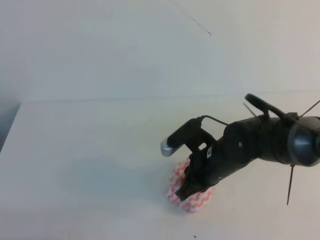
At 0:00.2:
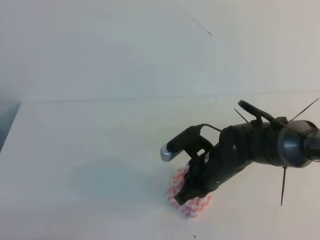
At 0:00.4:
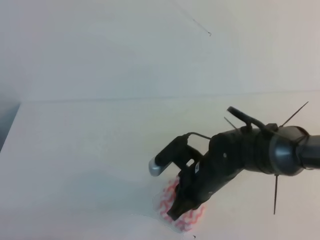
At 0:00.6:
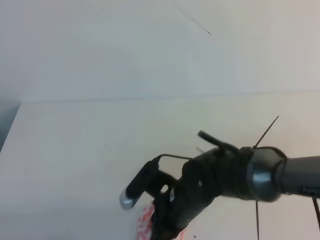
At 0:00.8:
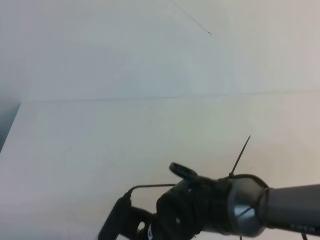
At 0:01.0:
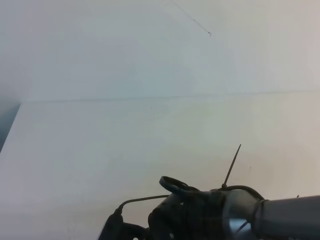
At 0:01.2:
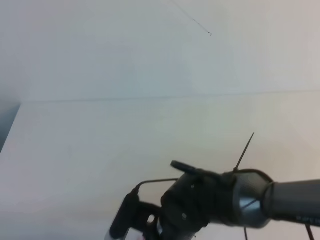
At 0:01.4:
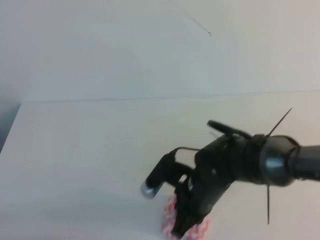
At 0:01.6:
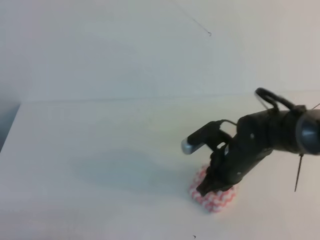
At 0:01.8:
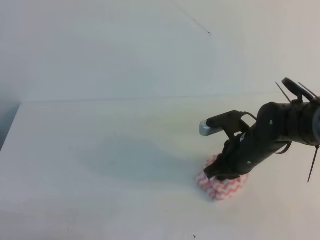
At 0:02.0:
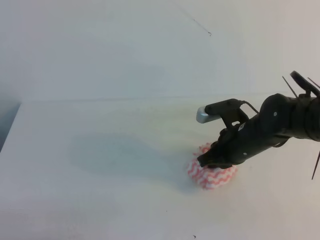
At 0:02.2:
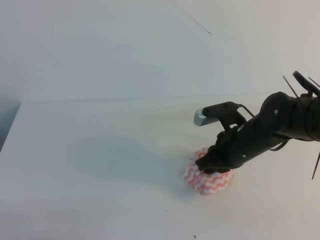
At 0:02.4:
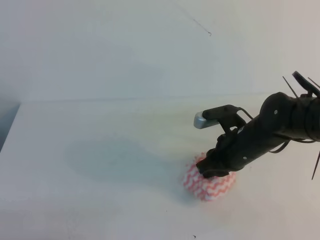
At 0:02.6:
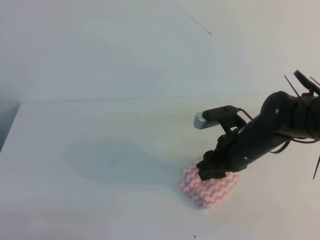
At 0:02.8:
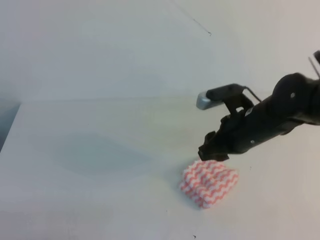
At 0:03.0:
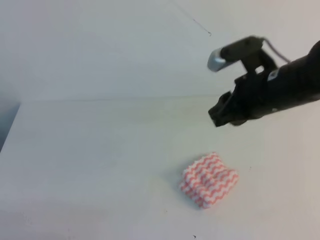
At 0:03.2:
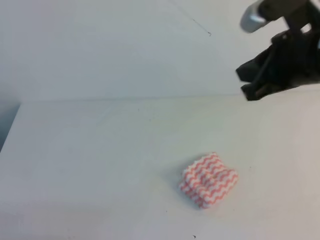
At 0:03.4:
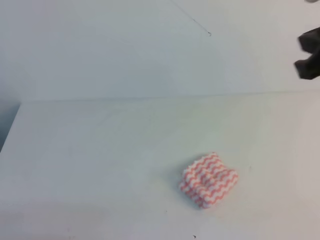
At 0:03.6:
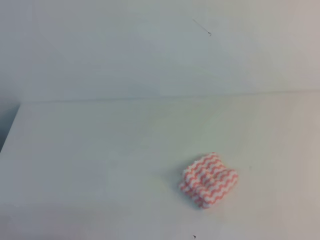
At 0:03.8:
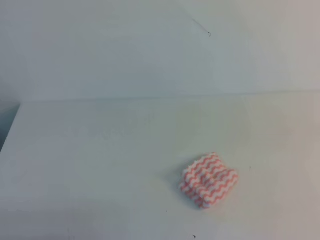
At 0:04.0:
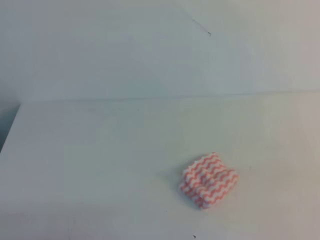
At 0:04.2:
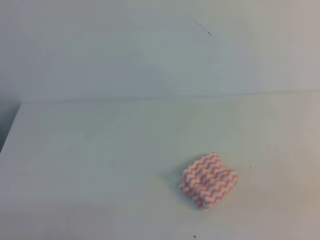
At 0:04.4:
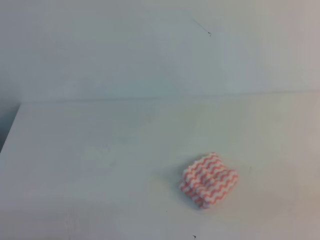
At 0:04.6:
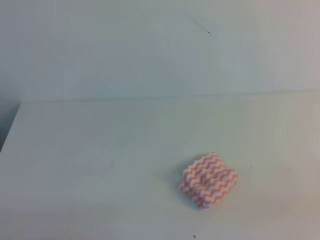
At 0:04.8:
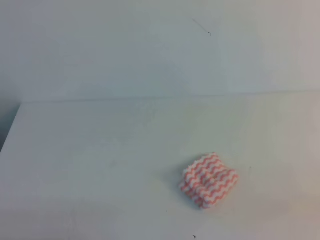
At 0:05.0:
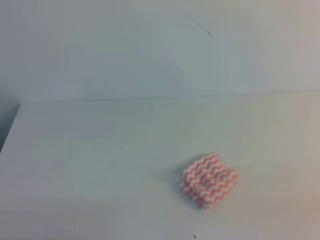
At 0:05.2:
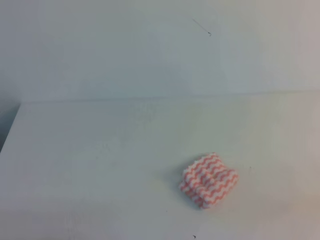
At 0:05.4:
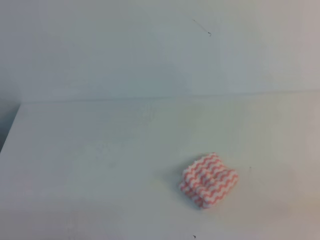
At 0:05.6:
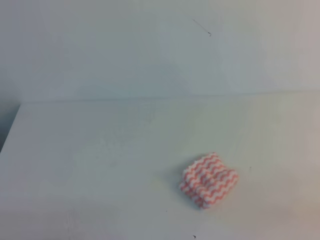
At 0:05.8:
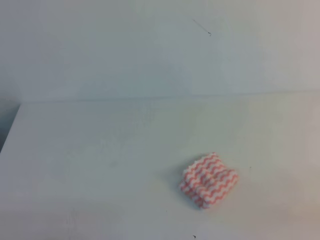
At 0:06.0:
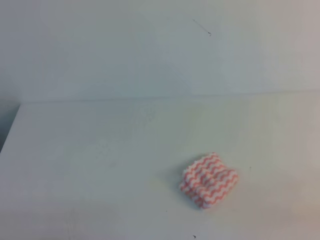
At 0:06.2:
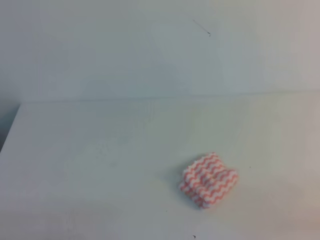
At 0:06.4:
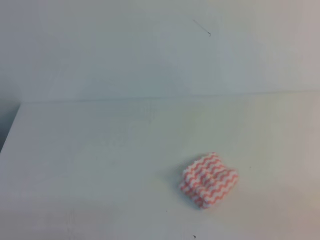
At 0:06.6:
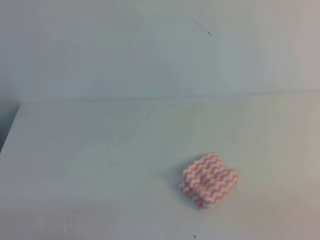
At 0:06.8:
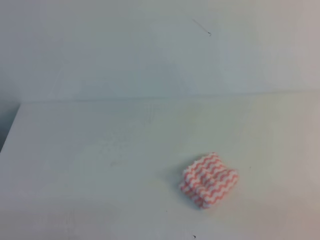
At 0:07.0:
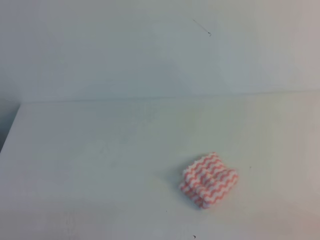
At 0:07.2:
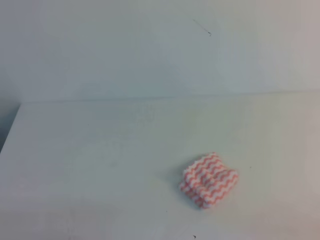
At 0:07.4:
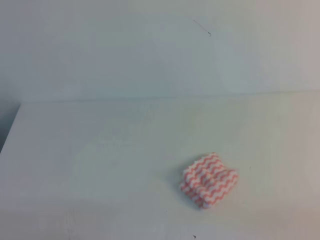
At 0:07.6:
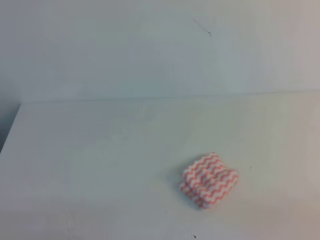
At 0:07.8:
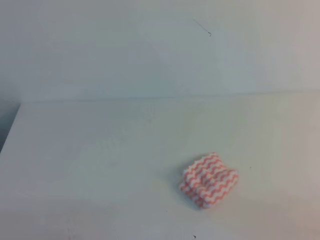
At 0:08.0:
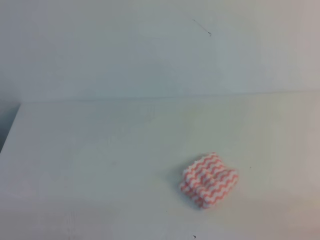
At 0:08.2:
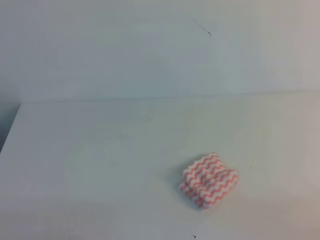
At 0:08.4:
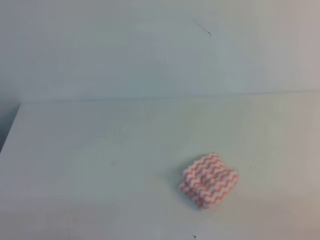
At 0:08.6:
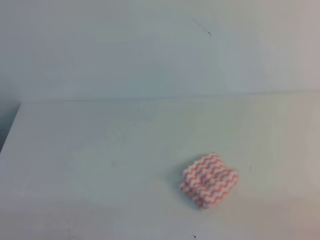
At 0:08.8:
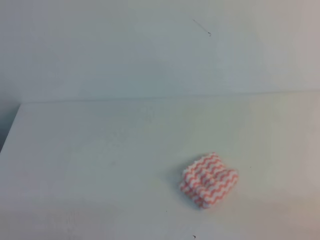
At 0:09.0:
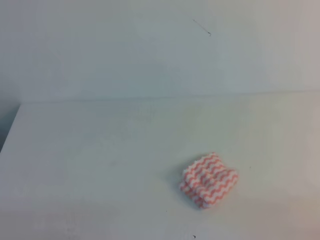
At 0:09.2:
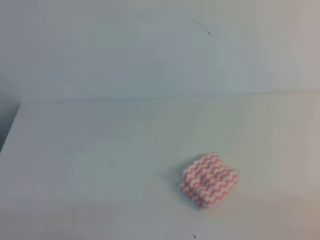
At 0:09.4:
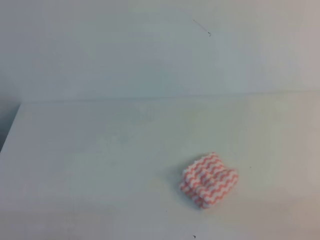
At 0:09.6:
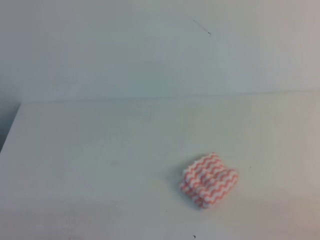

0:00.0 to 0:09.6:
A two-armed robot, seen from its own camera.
0:00.0 to 0:01.6: The right gripper goes backward and returns, roughly 15 cm each way.
0:01.6 to 0:03.2: The right gripper is displaced upward by approximately 20 cm, and opens and closes again.
0:03.2 to 0:04.8: The right gripper shifts approximately 30 cm backward, to the right and downward.
